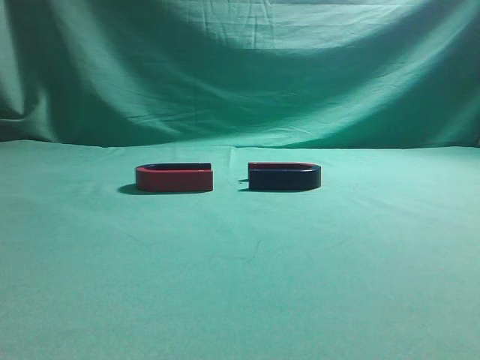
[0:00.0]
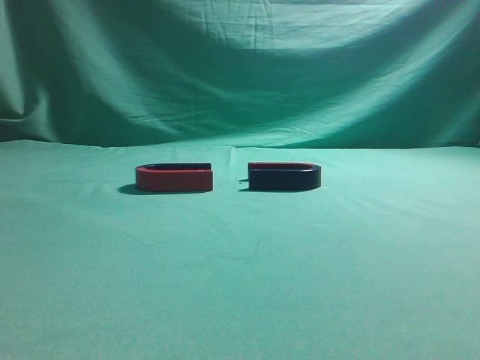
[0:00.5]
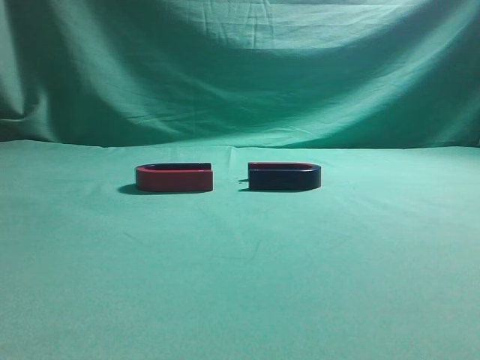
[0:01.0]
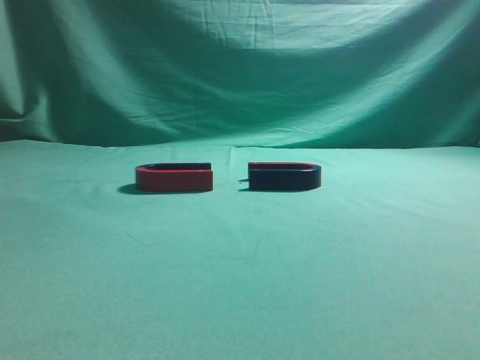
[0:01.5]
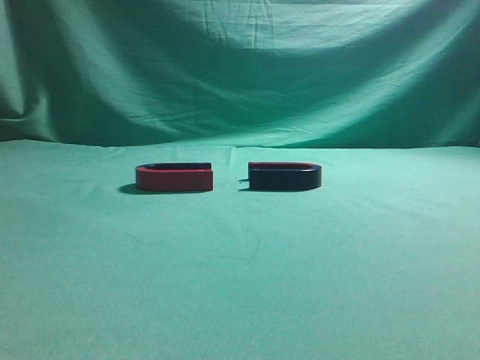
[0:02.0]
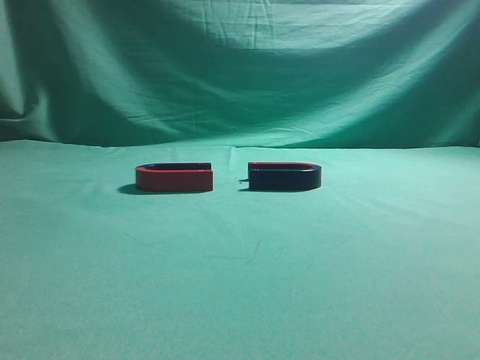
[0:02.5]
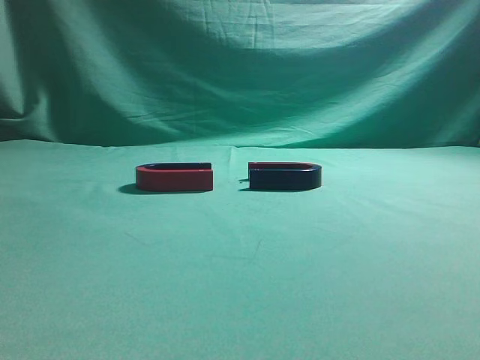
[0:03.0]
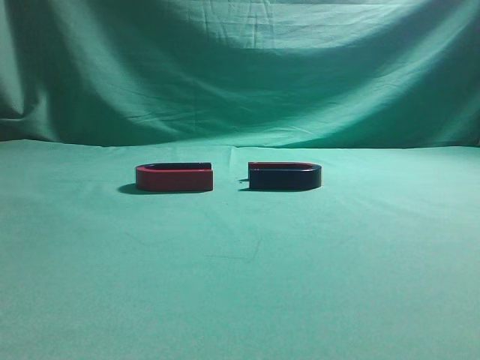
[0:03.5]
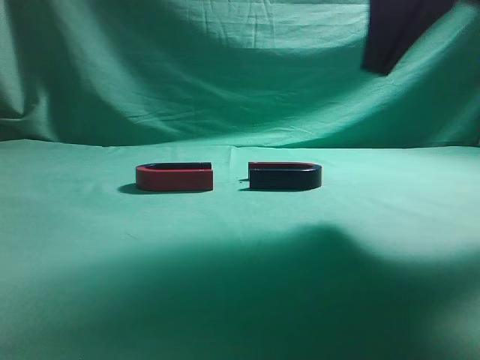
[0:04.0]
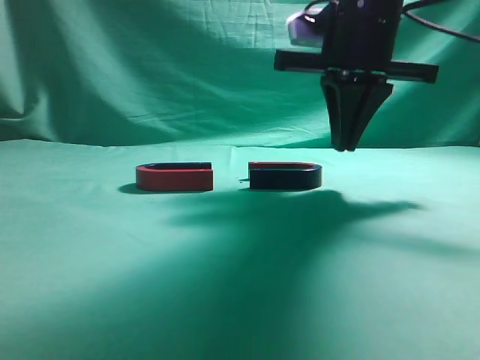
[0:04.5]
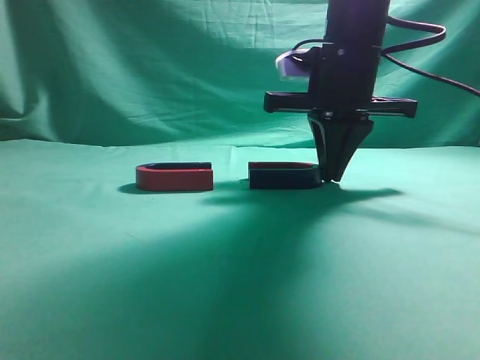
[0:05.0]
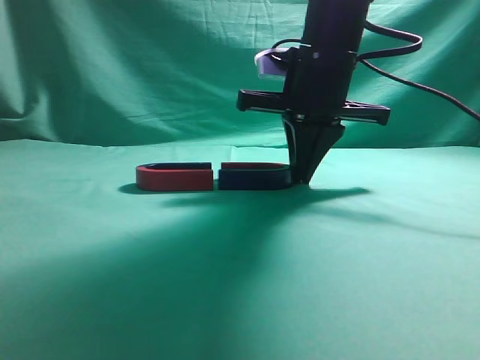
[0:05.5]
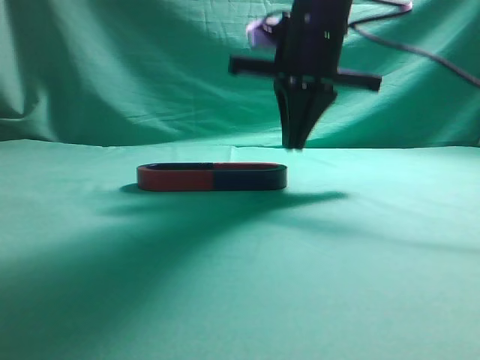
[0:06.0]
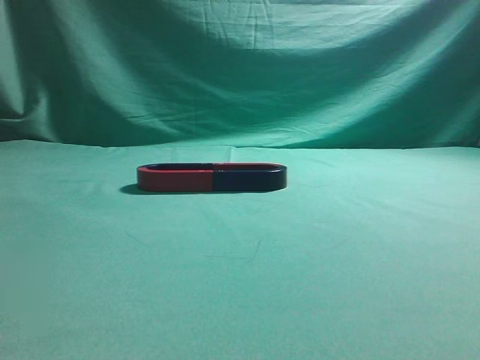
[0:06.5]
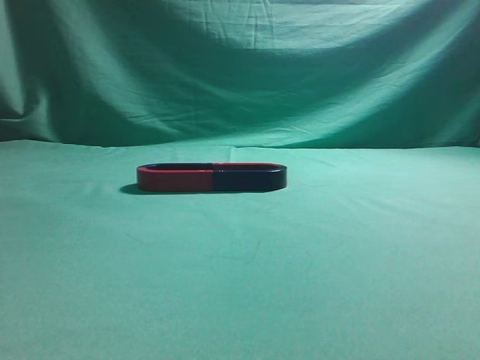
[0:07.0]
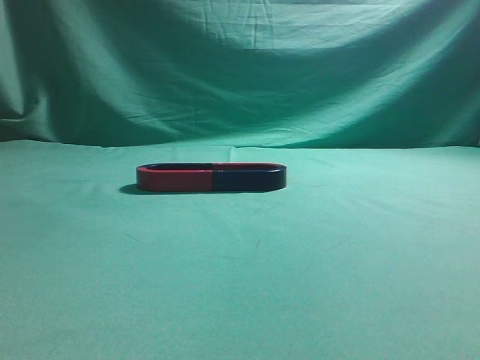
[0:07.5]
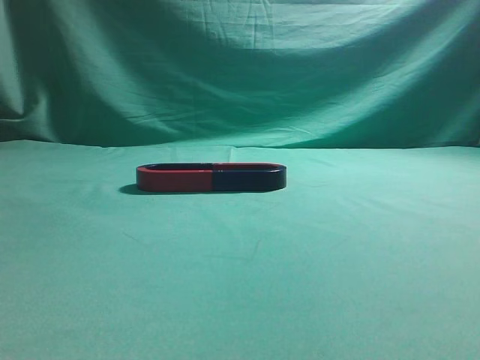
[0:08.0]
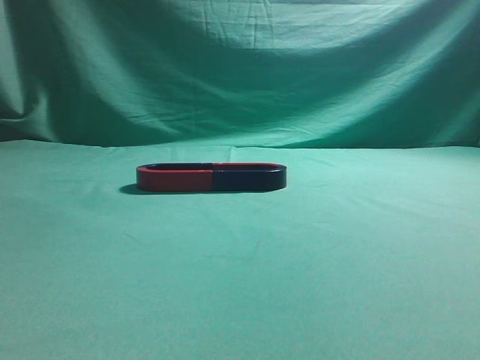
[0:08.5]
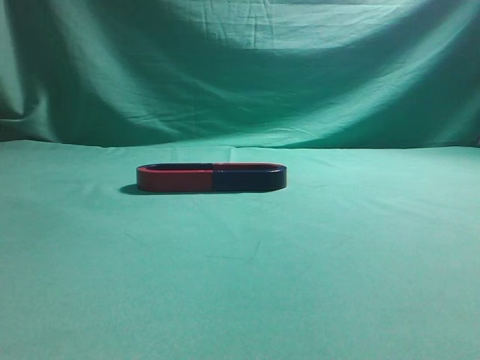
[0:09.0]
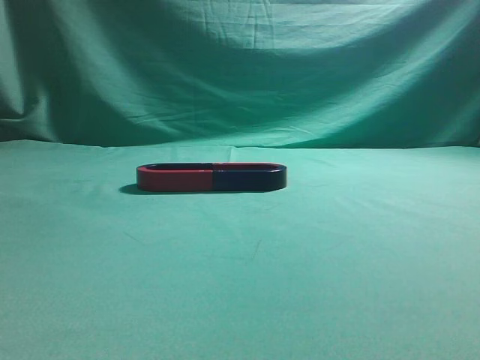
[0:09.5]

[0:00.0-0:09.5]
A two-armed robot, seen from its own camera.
Task of the whole recording: push the magnet on the table from its original position to another position.
Step, 0:00.0 to 0:05.5: Push the magnet on the right to connect the magnet on the left.
0:02.0 to 0:04.0: The right gripper heads forward and to the left, covering roughly 30 cm, and opens up.
0:04.0 to 0:05.5: The right gripper moves downward, forward and to the left, roughly 15 cm.
0:05.5 to 0:07.5: The right gripper travels backward, upward and to the right by about 50 cm.
